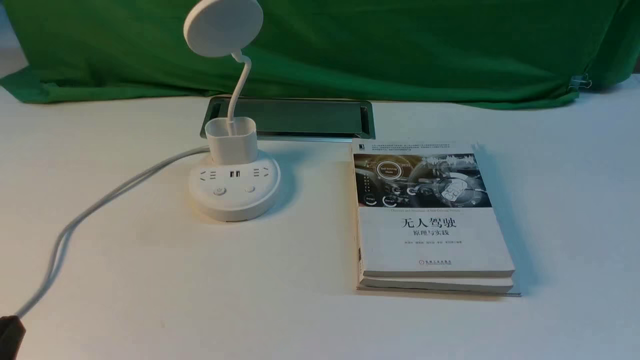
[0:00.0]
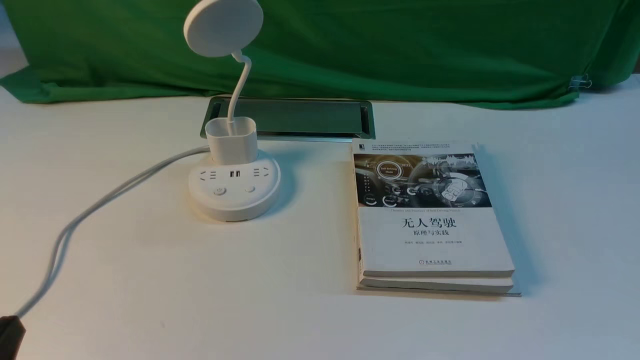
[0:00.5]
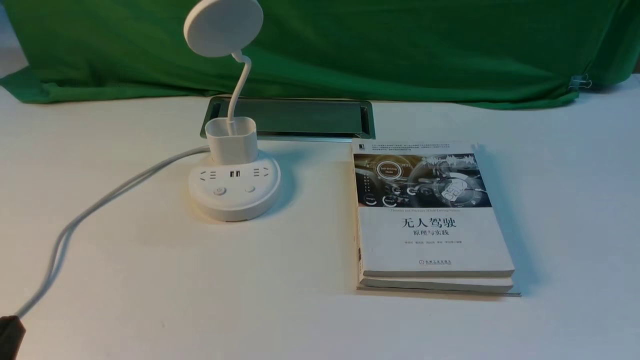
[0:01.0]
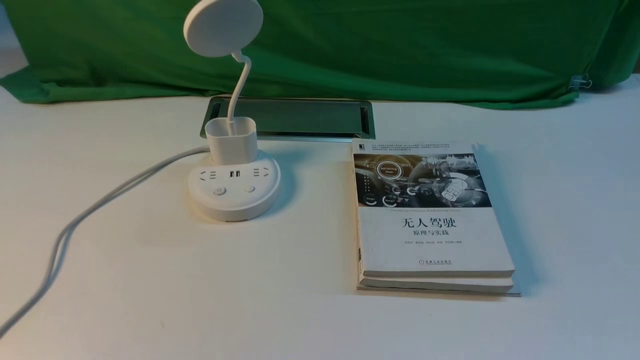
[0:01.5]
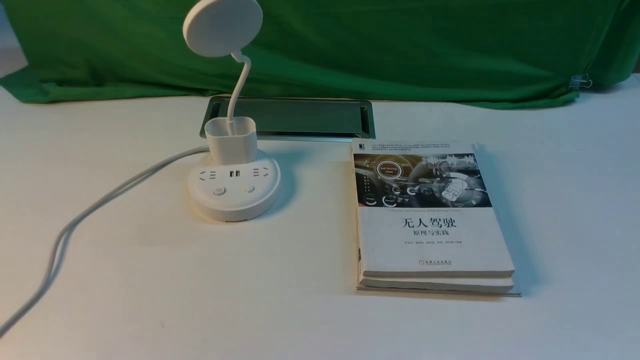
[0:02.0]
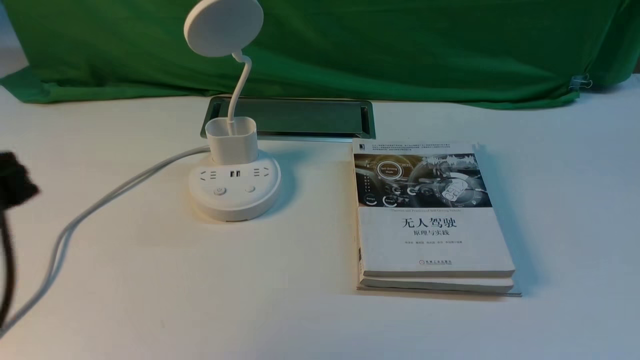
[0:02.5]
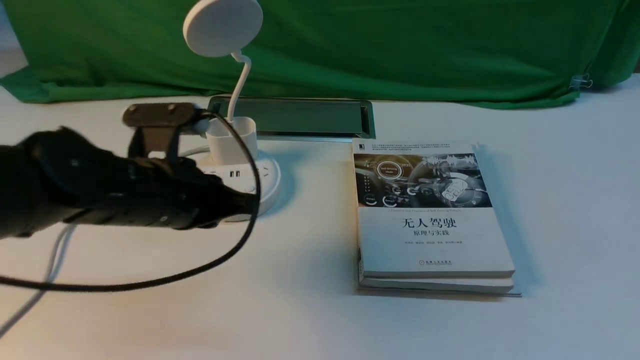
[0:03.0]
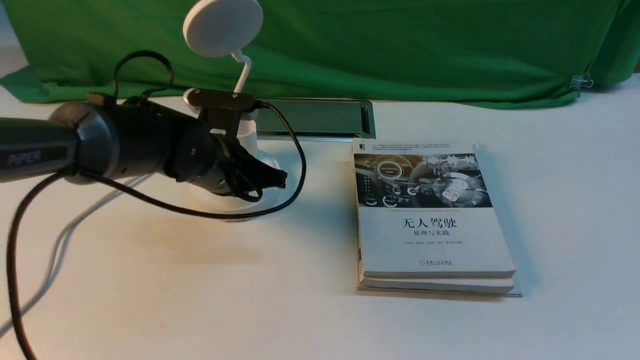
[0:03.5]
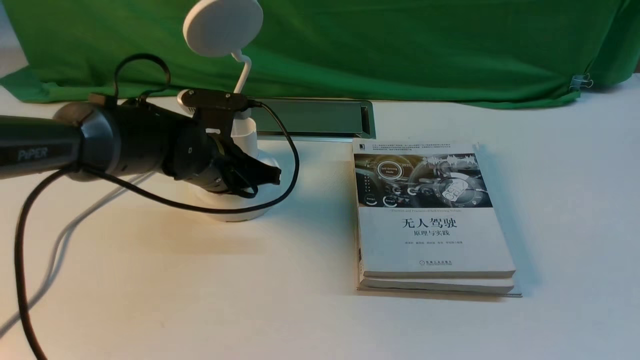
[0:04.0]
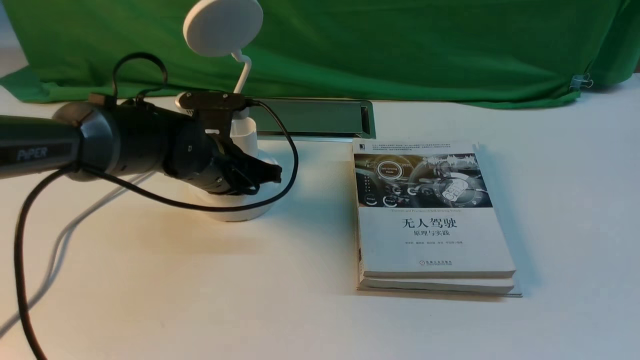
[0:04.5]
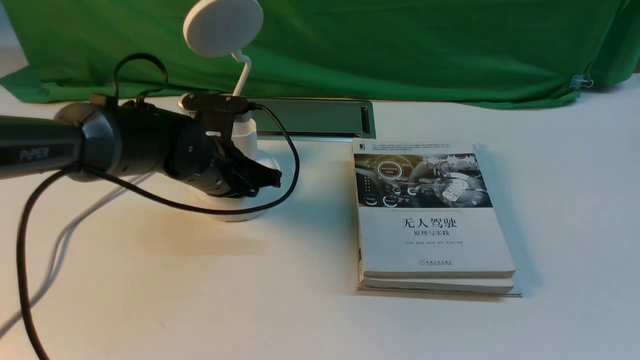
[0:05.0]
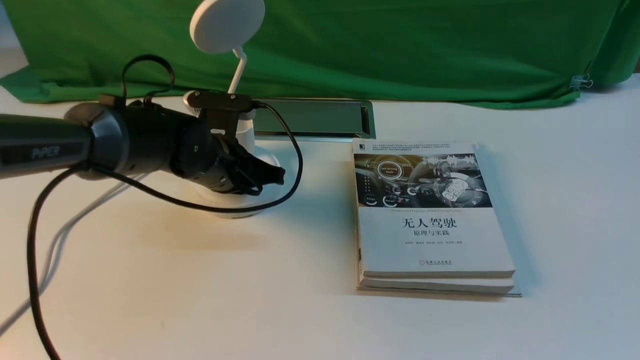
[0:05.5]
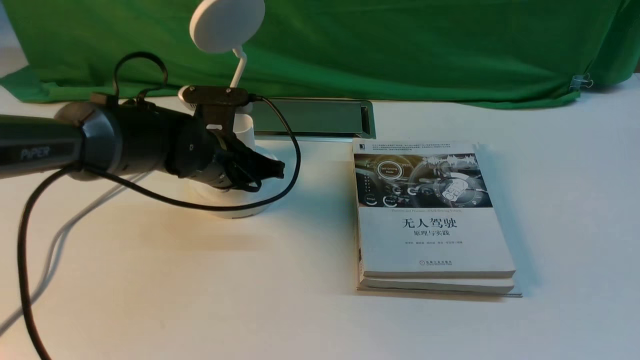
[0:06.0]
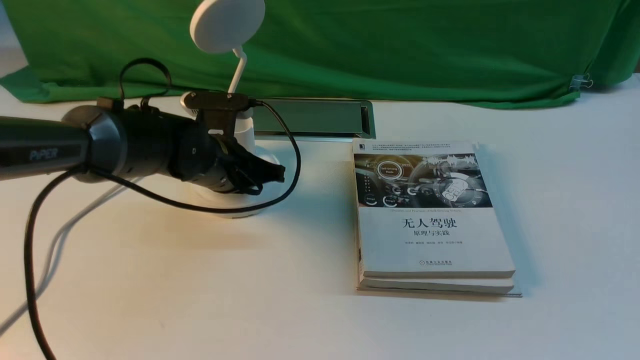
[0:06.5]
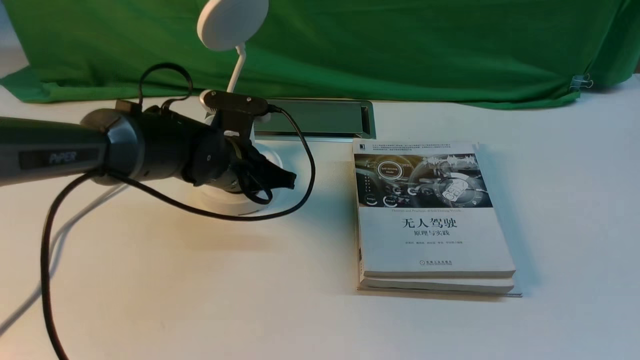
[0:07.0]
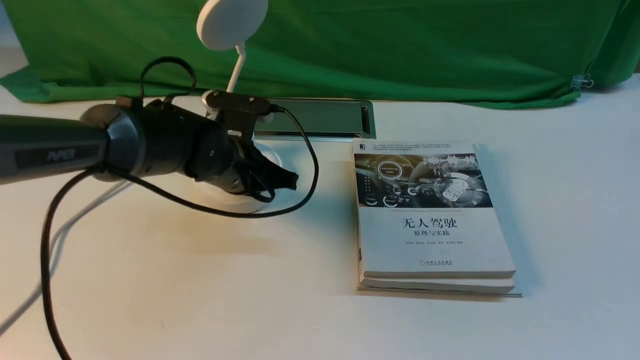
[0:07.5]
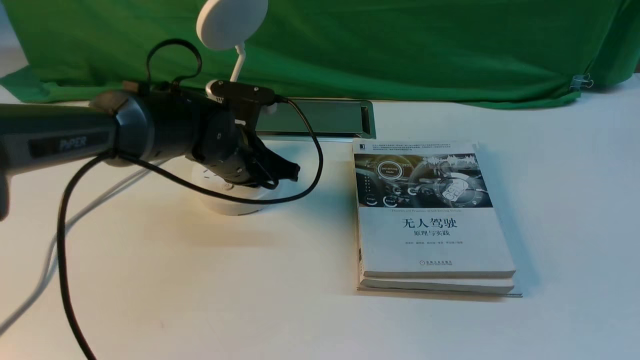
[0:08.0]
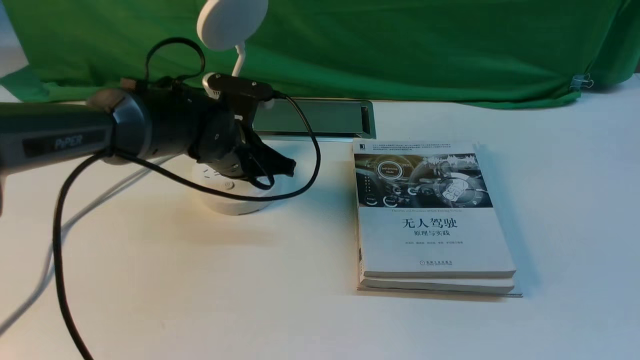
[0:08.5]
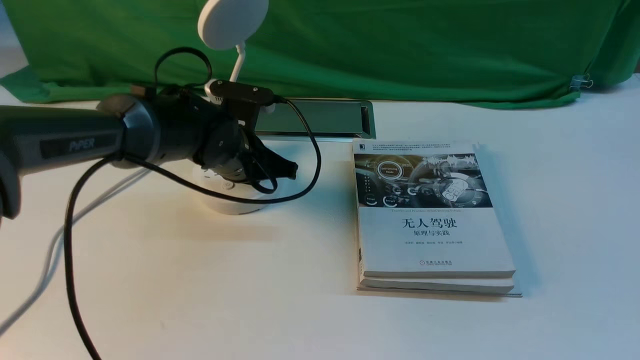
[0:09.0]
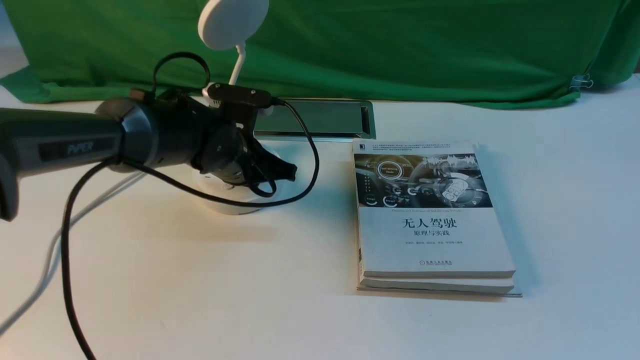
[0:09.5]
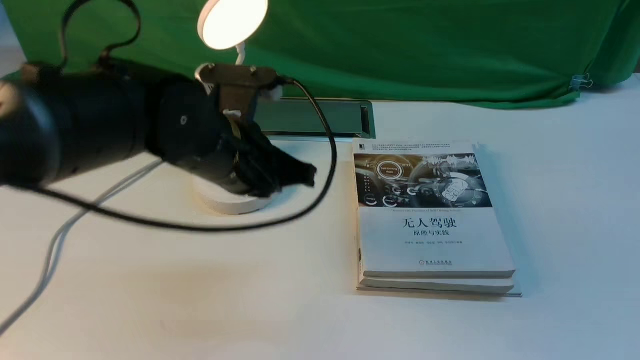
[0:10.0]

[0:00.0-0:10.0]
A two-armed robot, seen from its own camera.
Step, 0:00.0 to 0:09.5: use the left arm to press the button switch on the lamp holder.
0:02.0 to 0:04.0: The left gripper is displaced forward by roughly 35 cm, and closes.
0:04.0 to 0:06.0: The two grippers keep their place.
0:06.0 to 0:08.0: The grippers make only small movements.
0:08.0 to 0:10.0: The left gripper is displaced backward and upward by approximately 10 cm.

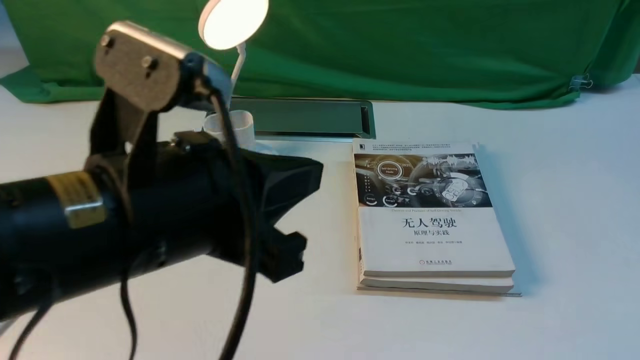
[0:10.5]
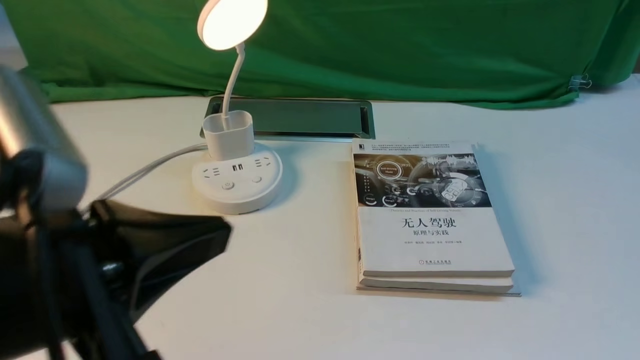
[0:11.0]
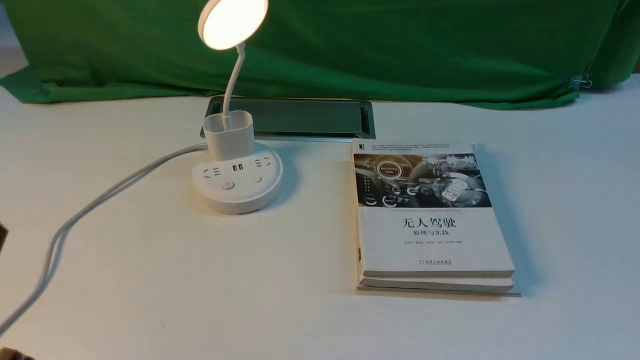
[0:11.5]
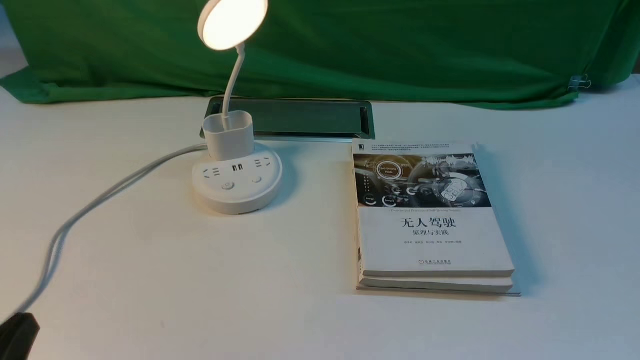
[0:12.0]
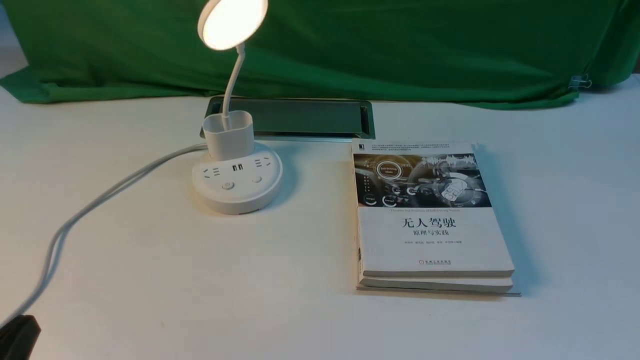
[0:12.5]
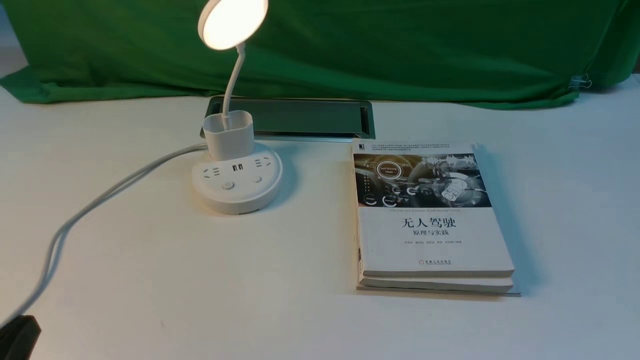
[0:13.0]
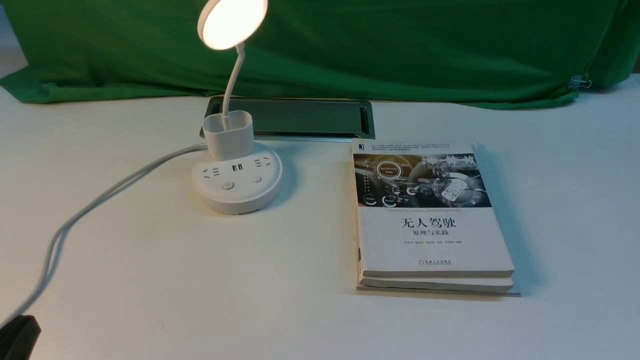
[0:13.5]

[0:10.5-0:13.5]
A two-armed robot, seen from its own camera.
0:10.5 to 0:12.0: The left gripper goes roughly 25 cm to the left, downward and backward.
